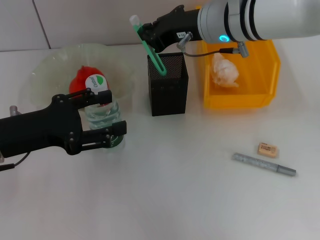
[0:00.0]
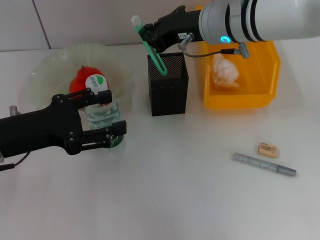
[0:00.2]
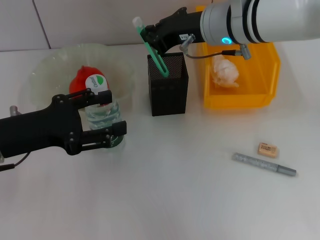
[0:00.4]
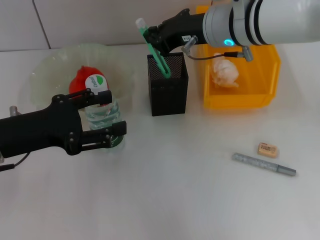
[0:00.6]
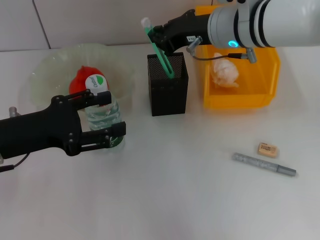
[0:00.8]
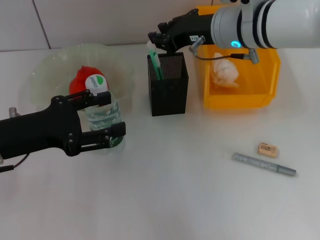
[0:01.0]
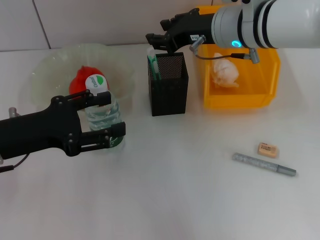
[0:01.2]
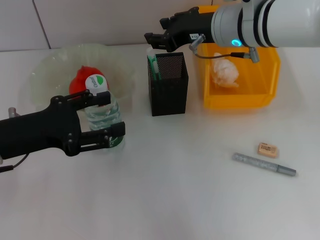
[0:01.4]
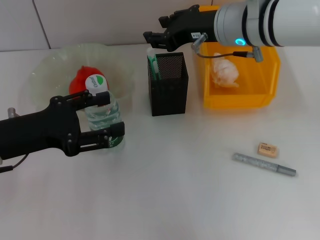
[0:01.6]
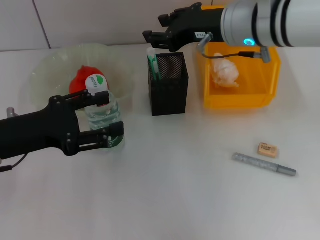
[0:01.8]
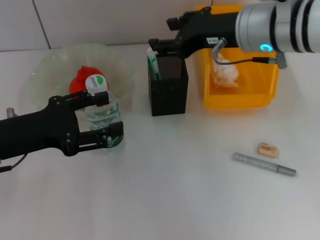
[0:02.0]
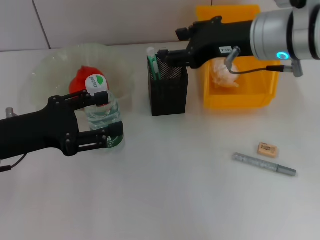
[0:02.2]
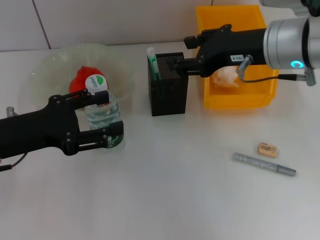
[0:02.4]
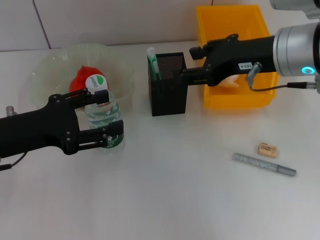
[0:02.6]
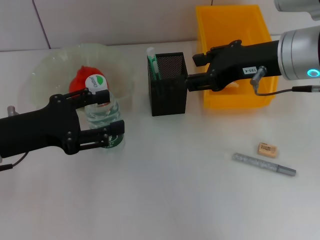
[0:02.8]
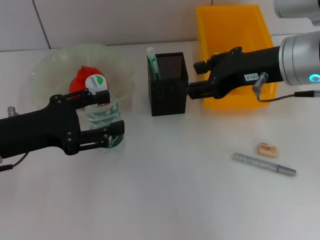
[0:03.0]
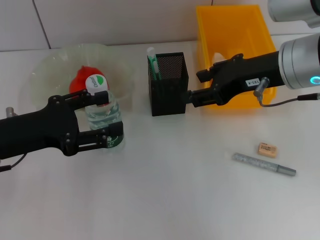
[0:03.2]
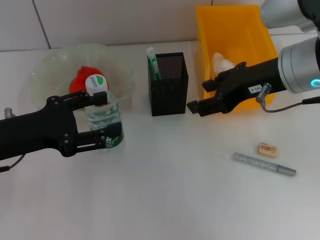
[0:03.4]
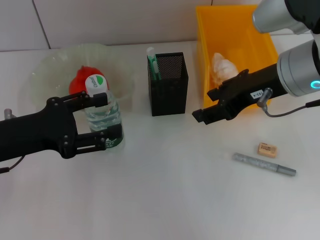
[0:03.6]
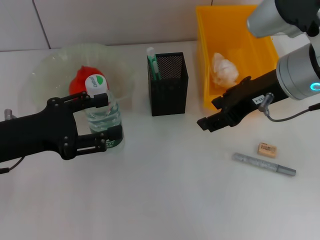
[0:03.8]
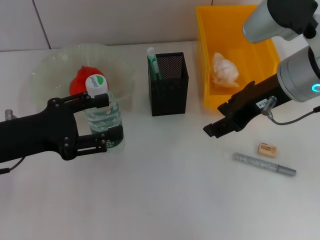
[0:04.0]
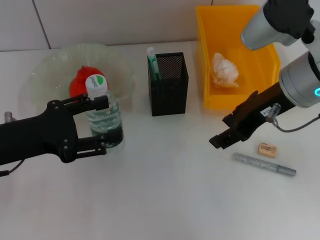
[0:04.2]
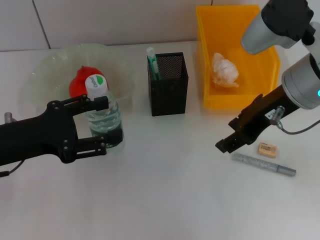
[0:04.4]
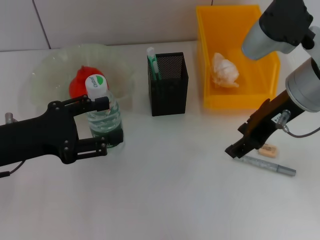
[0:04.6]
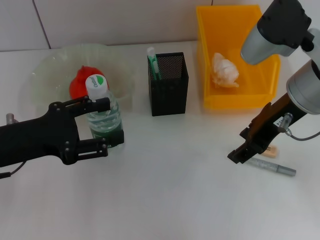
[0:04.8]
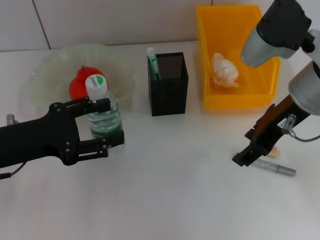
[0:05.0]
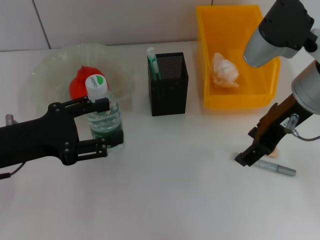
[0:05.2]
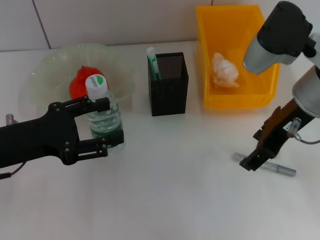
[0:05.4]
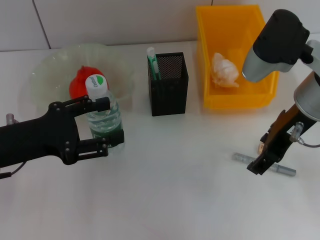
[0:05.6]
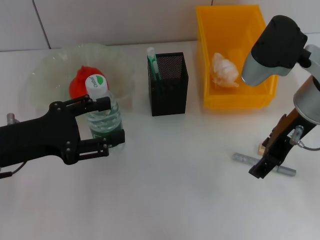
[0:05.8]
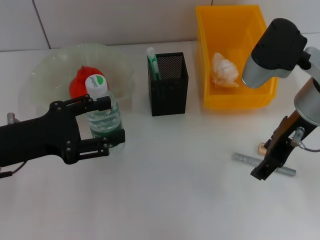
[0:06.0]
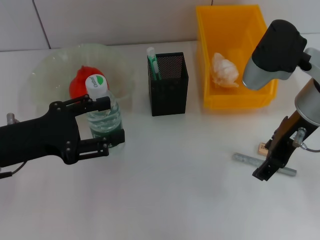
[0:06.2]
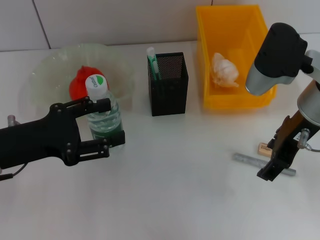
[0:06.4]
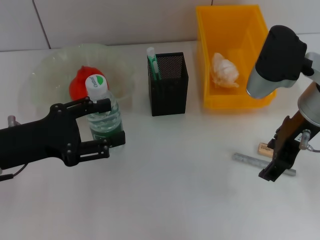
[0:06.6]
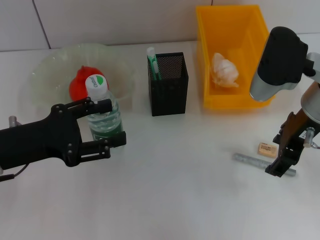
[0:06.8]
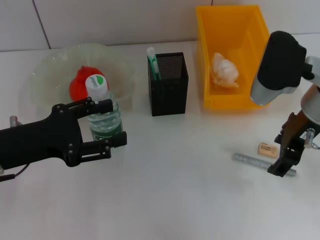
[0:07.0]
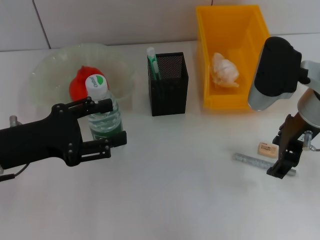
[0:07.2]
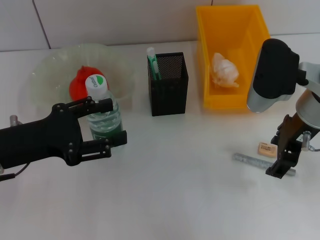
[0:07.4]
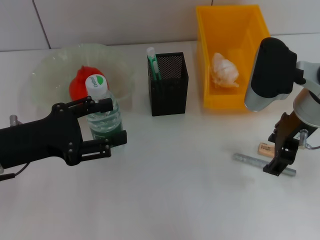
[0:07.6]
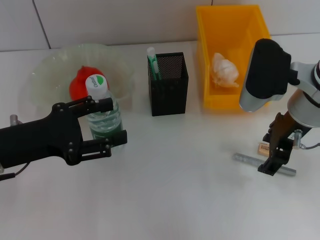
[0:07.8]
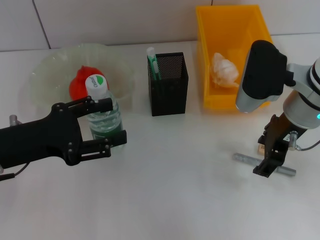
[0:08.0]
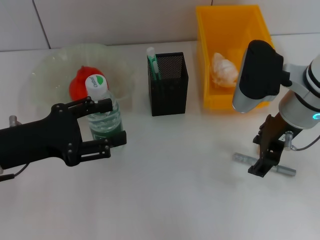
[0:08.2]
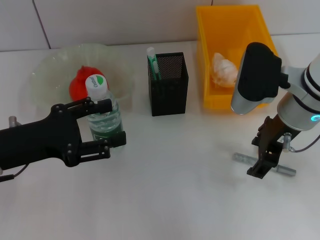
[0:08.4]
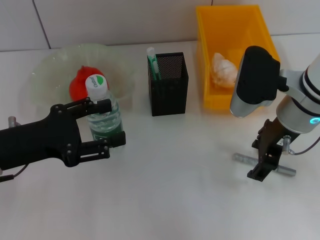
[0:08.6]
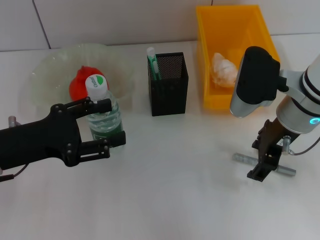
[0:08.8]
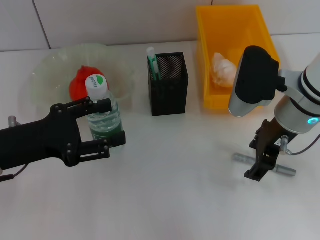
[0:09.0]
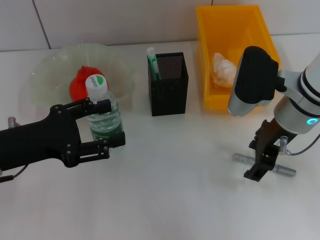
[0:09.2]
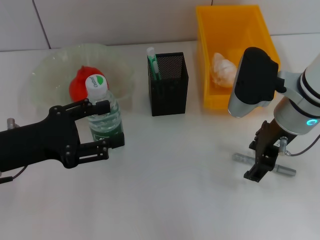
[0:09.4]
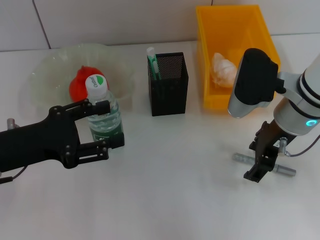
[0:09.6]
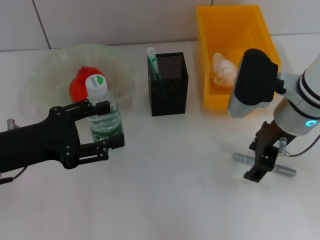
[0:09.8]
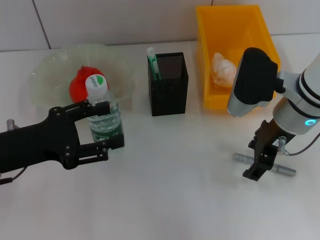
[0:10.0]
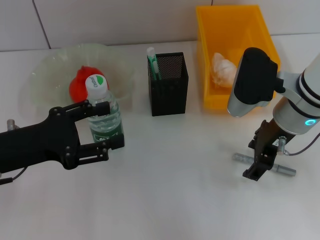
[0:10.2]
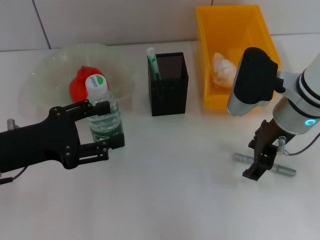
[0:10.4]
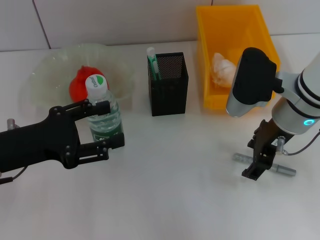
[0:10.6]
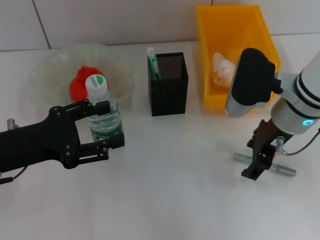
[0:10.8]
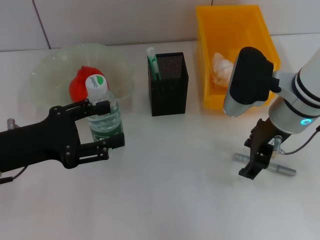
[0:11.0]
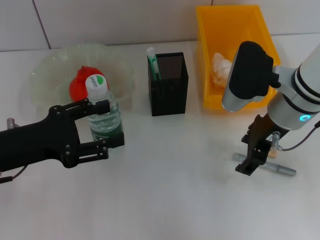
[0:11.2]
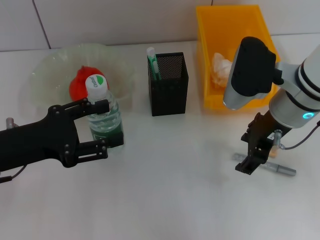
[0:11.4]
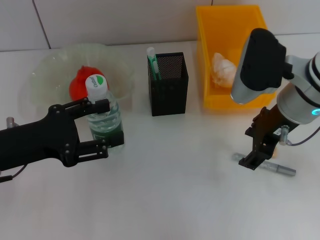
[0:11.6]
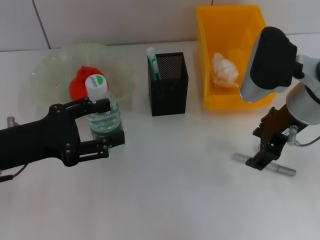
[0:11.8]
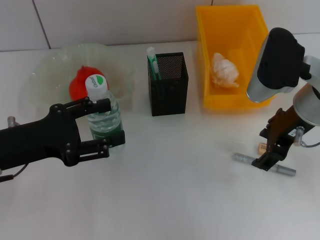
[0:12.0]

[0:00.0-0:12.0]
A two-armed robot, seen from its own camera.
0:00.0 to 0:01.6: The right gripper opens.
0:01.6 to 0:03.0: The right gripper shifts approximately 10 cm backward and to the right.
0:04.4 to 0:06.0: The grippers make only small movements.
0:06.0 to 0:09.0: The grippers make only small movements.
0:09.0 to 0:10.4: Neither gripper changes place.
0:10.4 to 0:12.0: There are only small adjustments of the grippers.

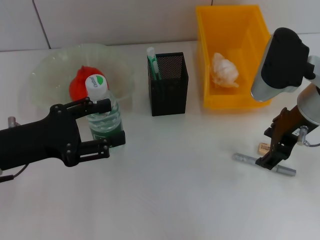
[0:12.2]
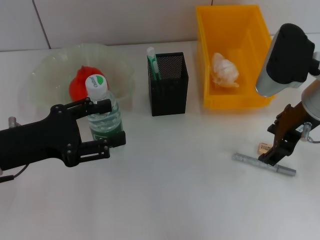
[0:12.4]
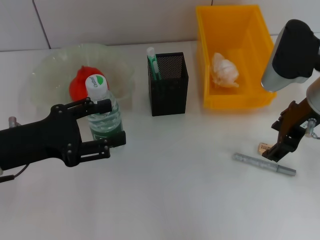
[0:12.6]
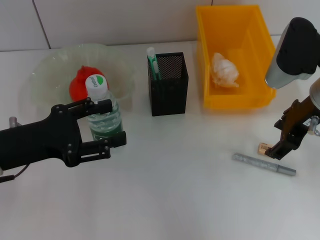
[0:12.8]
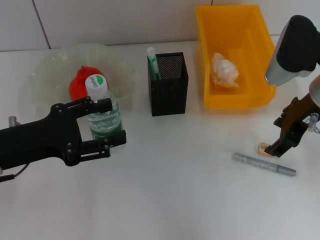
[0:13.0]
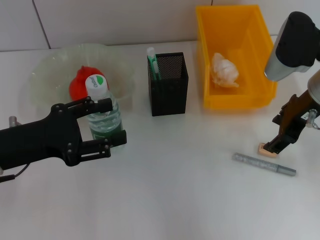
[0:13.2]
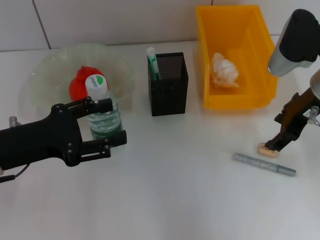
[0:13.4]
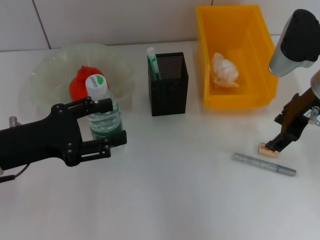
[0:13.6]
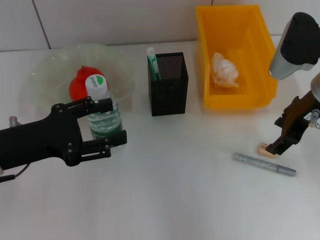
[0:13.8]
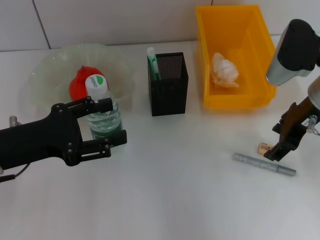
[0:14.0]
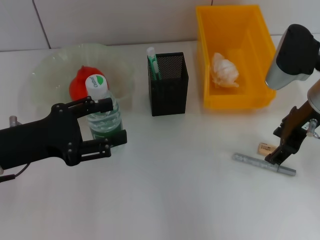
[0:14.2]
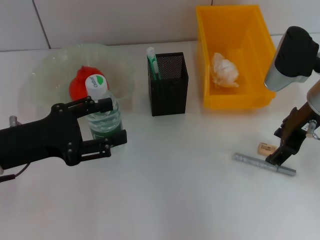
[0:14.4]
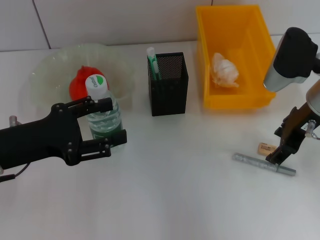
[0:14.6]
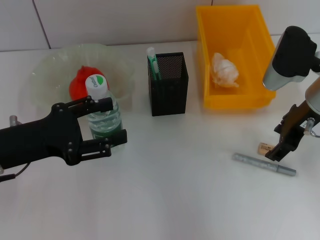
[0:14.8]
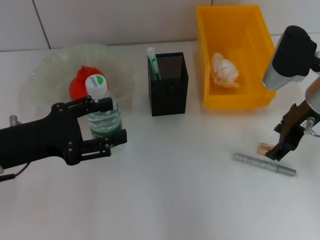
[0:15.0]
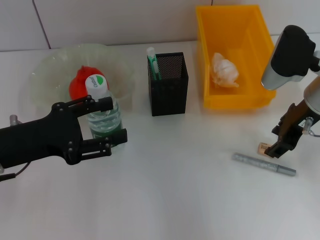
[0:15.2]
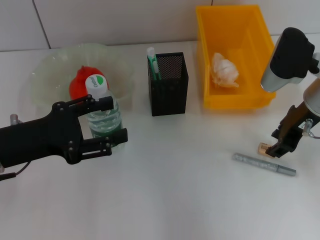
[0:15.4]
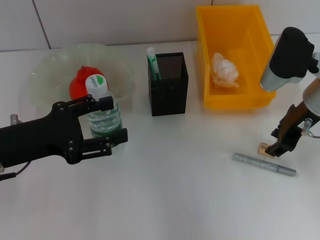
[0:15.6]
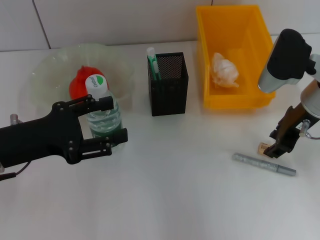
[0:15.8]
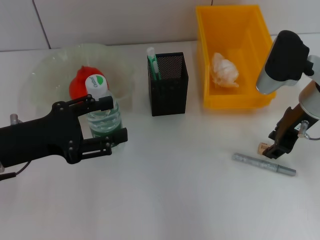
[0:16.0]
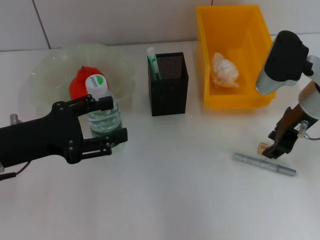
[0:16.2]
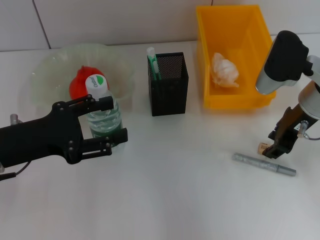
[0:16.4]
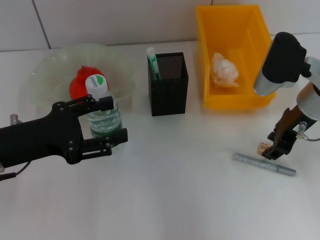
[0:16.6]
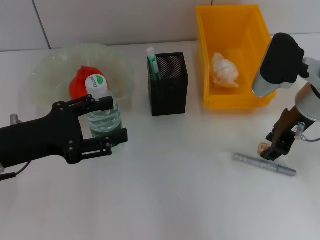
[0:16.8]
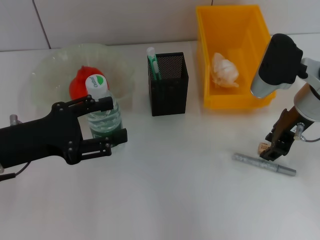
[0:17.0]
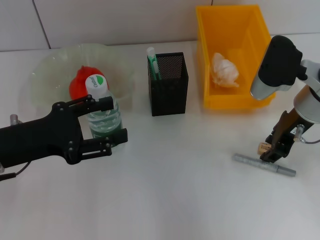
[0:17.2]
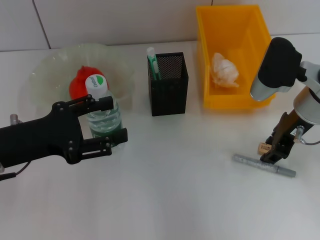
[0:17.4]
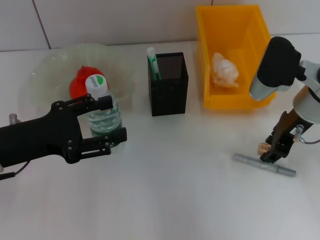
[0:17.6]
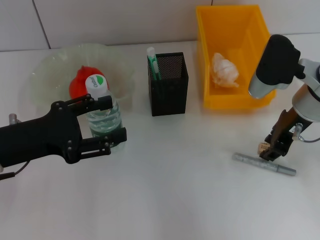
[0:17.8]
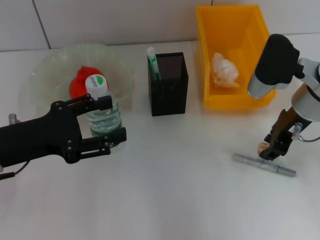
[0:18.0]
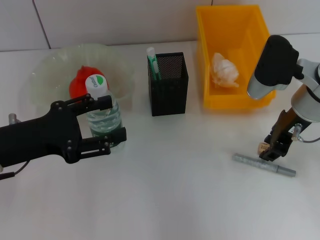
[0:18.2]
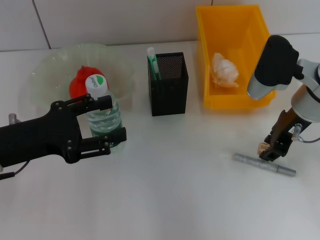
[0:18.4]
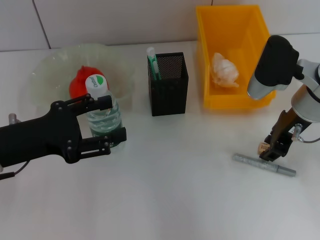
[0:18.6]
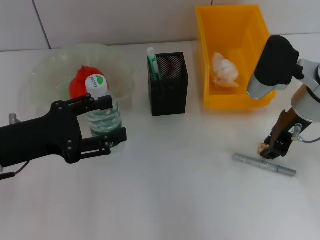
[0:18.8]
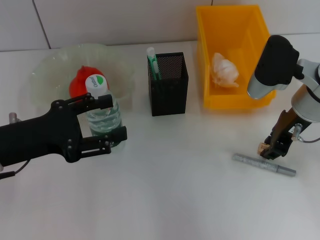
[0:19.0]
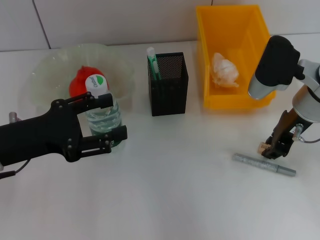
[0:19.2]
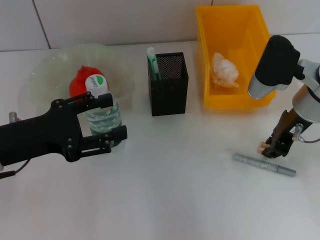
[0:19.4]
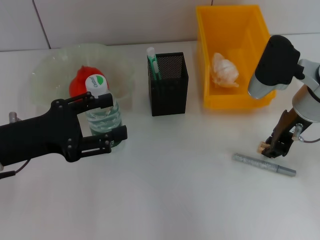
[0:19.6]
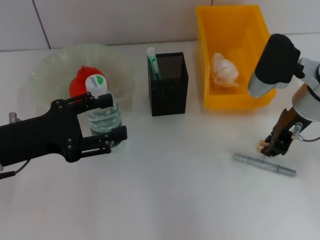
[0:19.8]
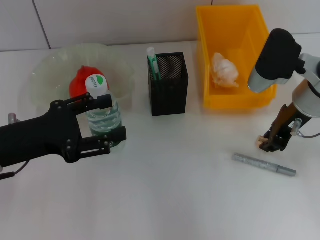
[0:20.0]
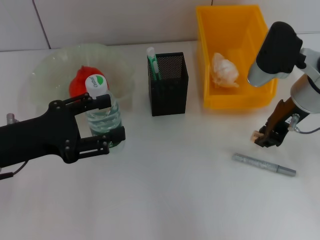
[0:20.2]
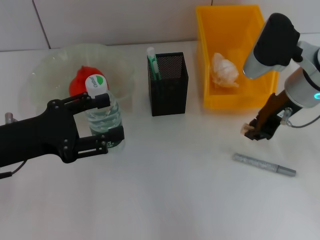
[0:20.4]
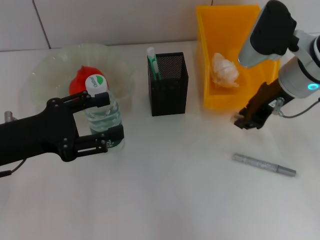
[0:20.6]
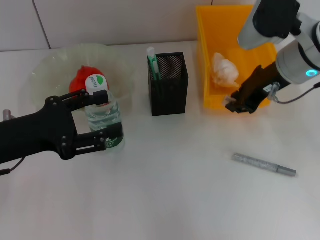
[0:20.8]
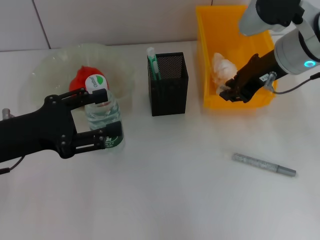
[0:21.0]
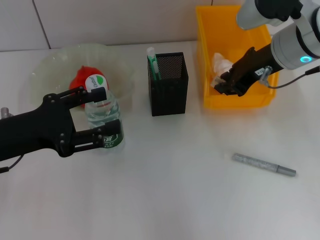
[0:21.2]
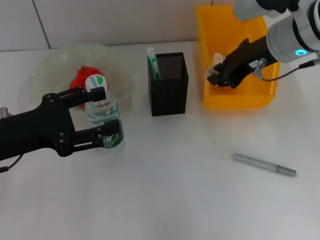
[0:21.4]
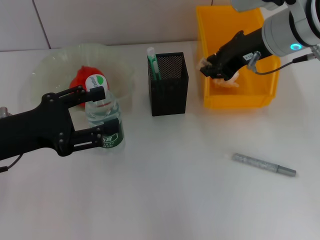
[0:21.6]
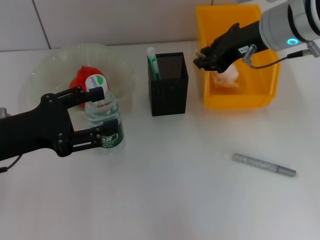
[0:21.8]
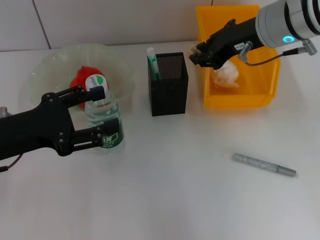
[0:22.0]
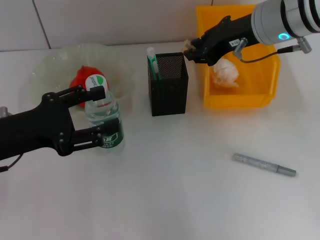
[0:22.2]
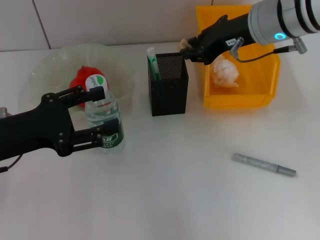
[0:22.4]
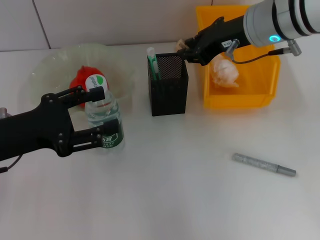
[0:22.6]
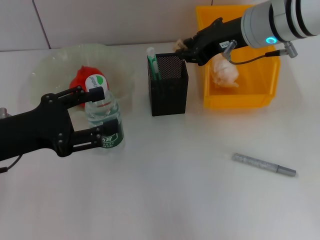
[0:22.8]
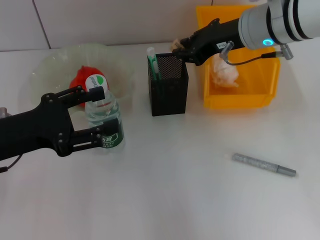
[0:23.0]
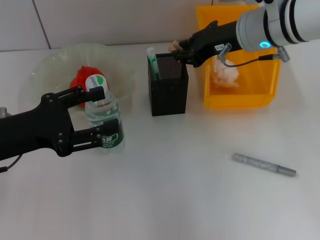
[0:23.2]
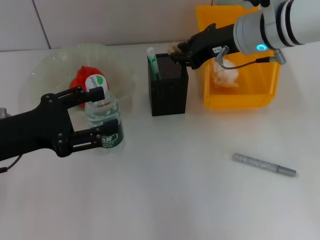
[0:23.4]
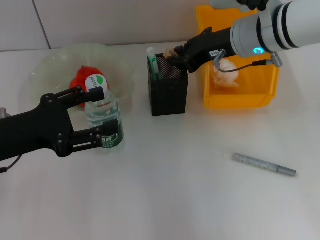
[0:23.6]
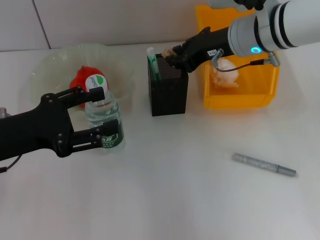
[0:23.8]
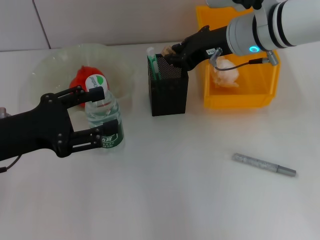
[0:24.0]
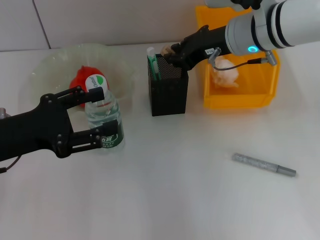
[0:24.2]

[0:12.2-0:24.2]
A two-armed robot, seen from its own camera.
Step, 0:12.2 to 0:19.6: Grab the eraser with the right hand.
0:12.2 to 0:15.2: The grippers stay close to where they were, moving slightly.
0:15.2 to 0:16.6: Both grippers stay put.
0:16.6 to 0:19.8: The two grippers keep their place.
0:19.8 to 0:21.2: The right gripper travels upward by about 5 cm.
0:21.2 to 0:24.2: The grippers move only a little.
